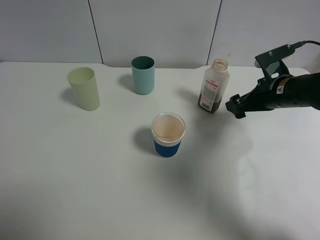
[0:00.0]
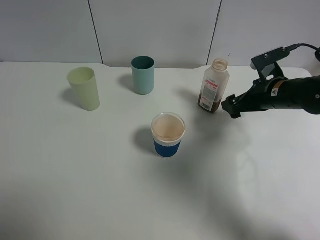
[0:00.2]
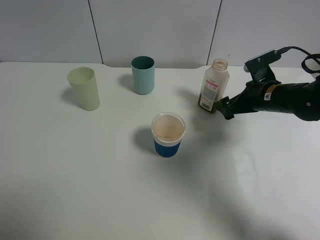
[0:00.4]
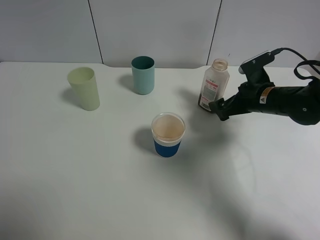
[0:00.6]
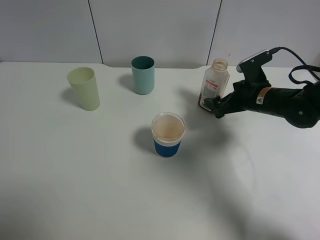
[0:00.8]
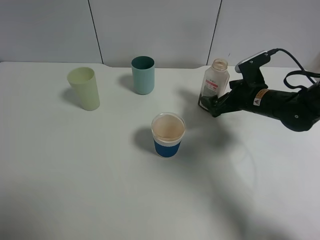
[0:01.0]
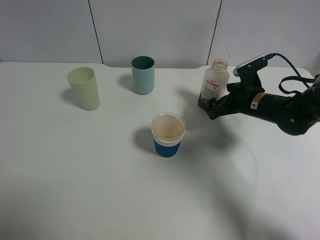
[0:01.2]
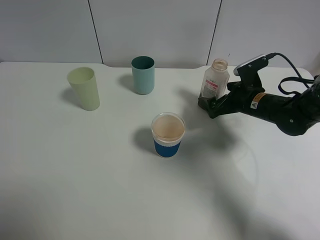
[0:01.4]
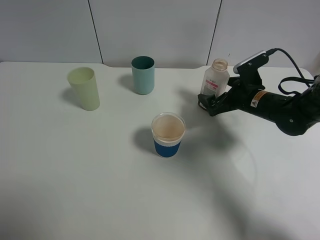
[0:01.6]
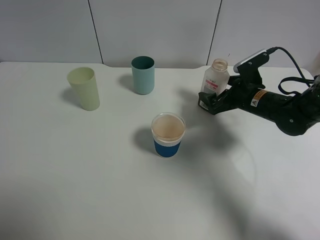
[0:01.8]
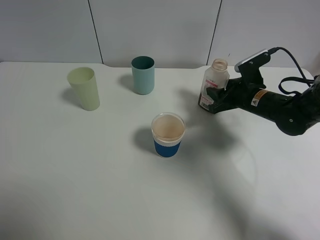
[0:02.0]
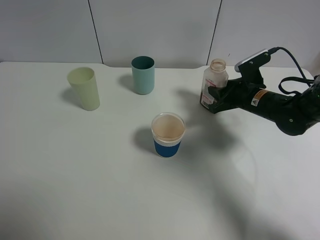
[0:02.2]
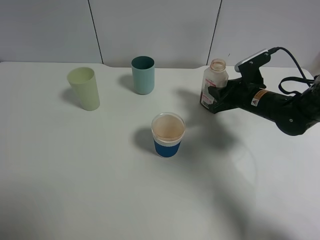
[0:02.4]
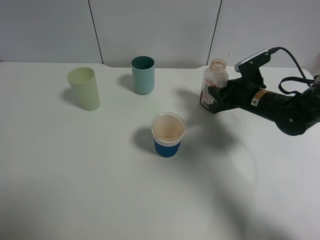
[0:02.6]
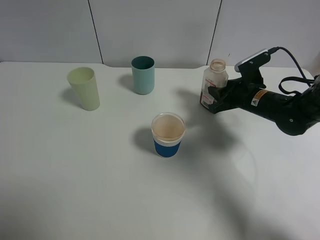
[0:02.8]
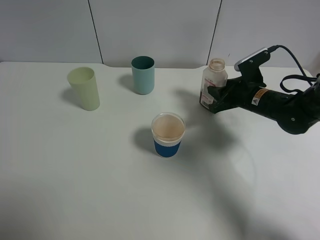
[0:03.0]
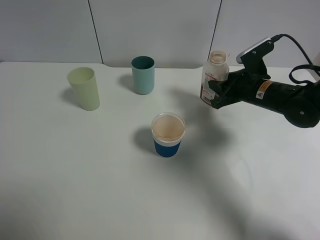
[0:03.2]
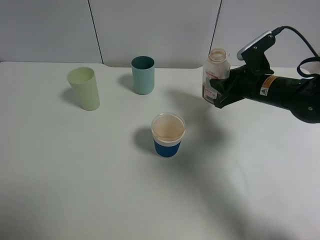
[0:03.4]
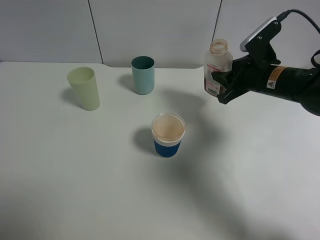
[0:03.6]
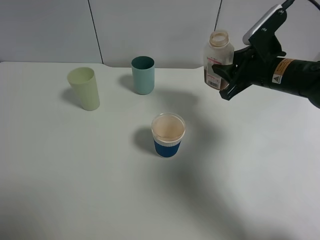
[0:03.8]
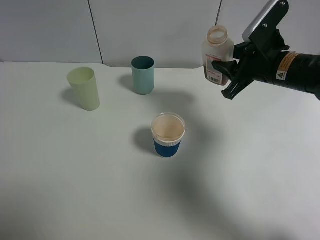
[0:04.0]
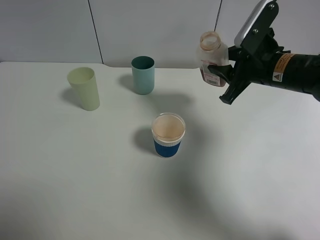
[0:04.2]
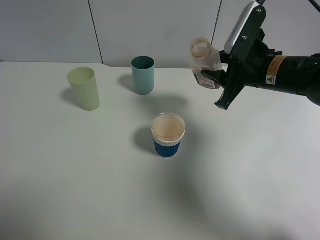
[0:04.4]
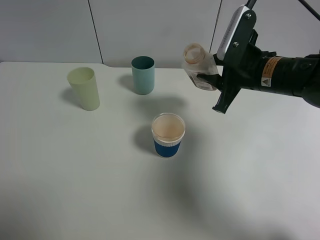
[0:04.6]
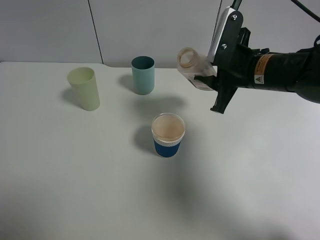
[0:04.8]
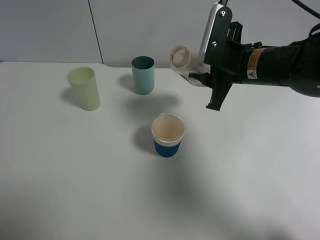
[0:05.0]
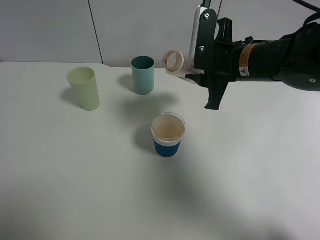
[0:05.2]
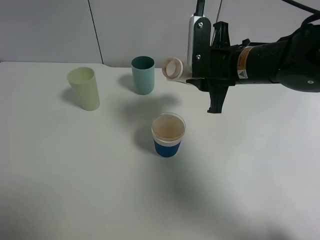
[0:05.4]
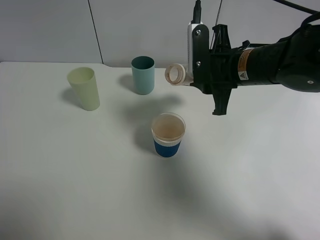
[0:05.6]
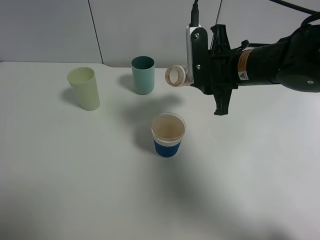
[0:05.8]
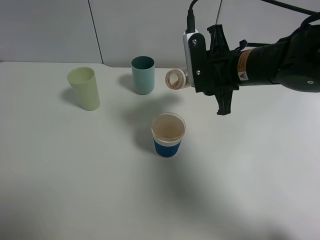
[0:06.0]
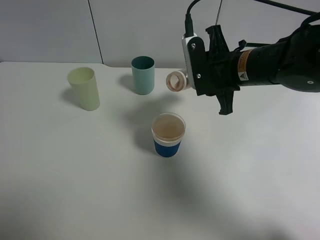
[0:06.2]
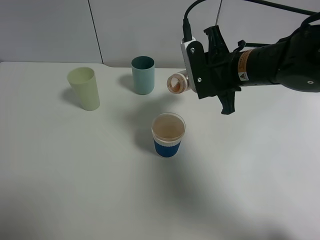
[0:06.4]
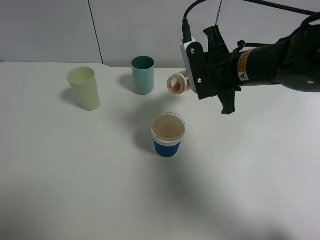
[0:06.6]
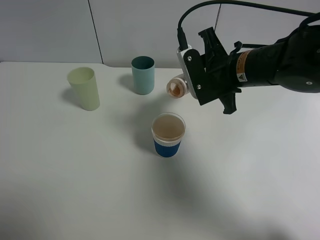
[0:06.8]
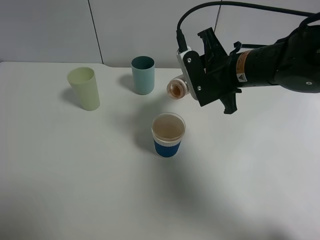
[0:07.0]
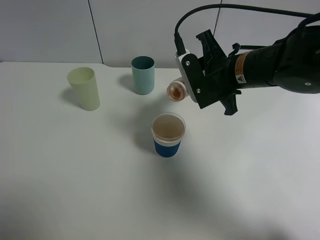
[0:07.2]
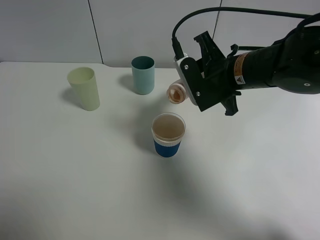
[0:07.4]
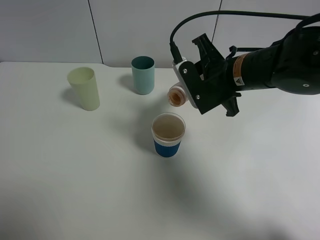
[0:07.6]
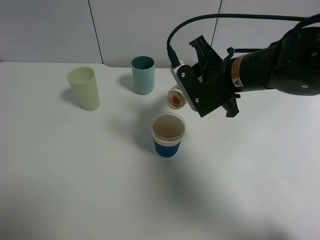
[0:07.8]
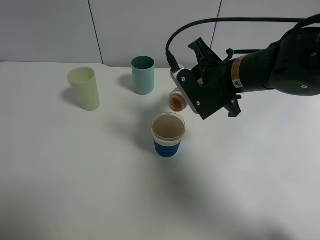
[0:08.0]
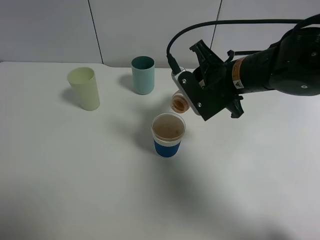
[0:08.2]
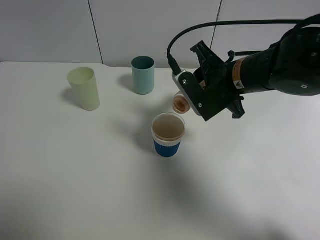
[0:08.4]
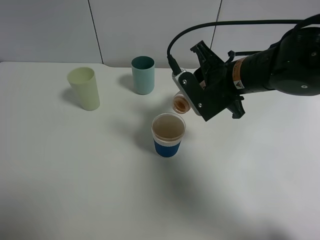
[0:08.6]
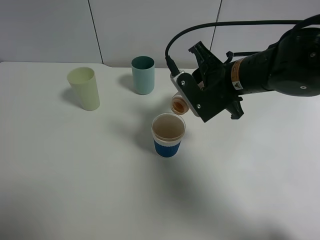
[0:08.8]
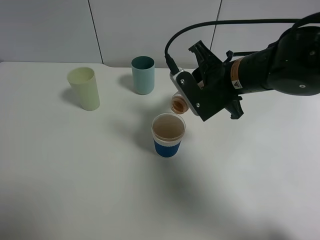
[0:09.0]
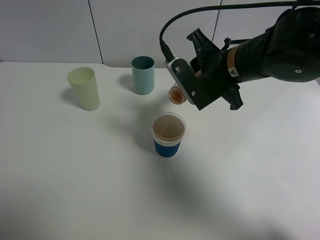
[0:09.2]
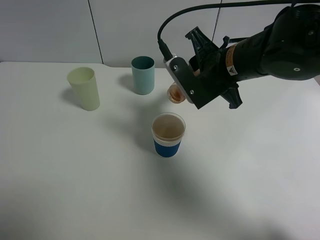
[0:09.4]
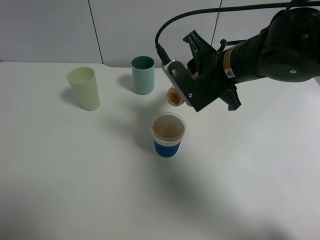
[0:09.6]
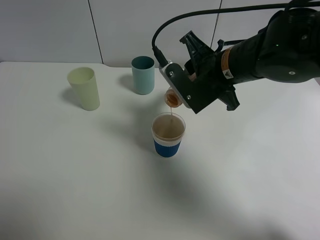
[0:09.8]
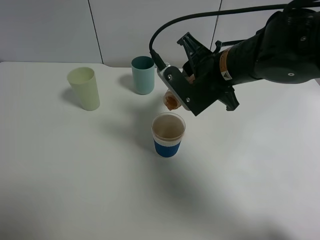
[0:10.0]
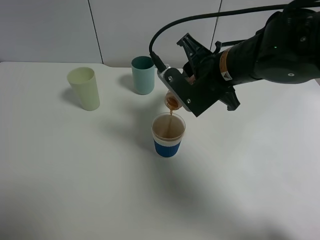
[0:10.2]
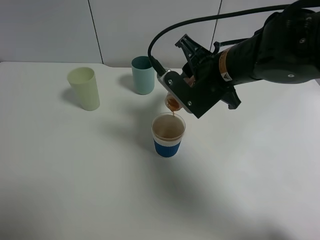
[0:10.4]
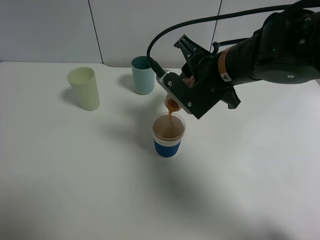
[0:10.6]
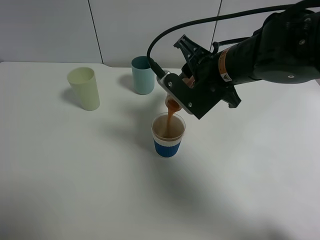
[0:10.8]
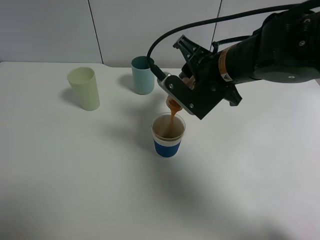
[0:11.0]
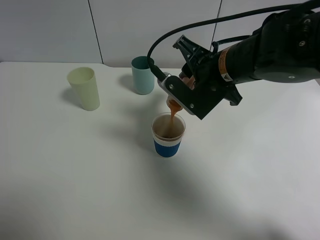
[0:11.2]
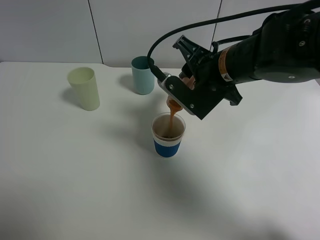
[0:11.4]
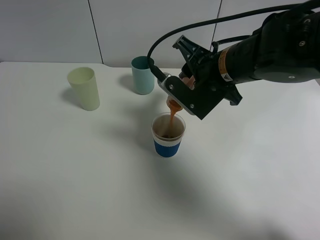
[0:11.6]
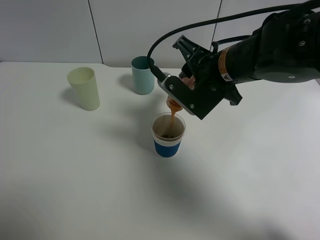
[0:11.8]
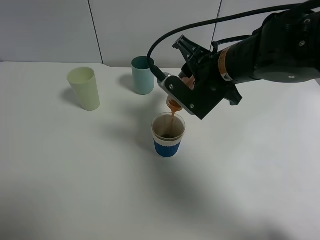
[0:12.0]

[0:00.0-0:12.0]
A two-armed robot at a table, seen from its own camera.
Task of the whole recording: use a gripper to hold the bottle of the drink and pour it into a random cup.
Step, 0:00.0 to 0:02.2: Grasp the cranberry juice bottle with the right gripper.
0:00.0 to 0:01.6: The right gripper changes place by about 5 cm.
0:01.6 to 0:03.0: The right gripper closes.
0:03.0 to 0:04.4: The right gripper travels upward by about 10 cm.
0:06.0 to 0:07.6: The grippers make only small movements.
0:07.6 to 0:12.0: The grippers move only a little.

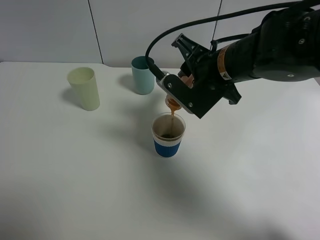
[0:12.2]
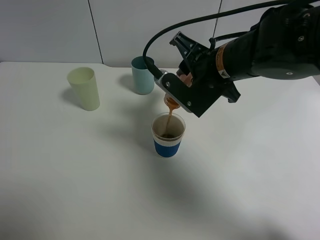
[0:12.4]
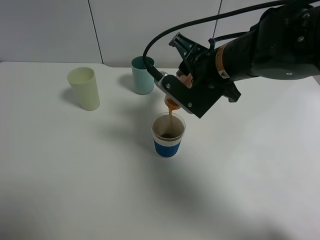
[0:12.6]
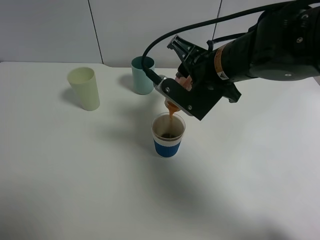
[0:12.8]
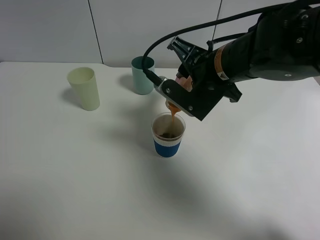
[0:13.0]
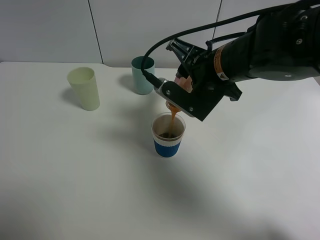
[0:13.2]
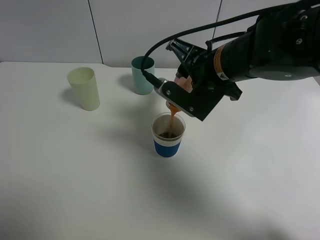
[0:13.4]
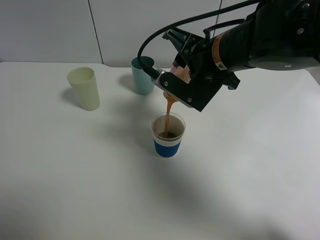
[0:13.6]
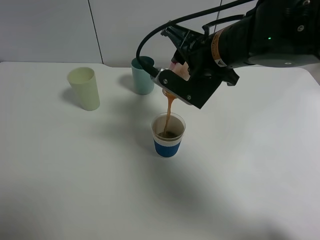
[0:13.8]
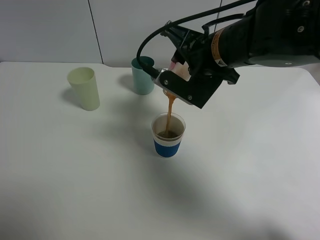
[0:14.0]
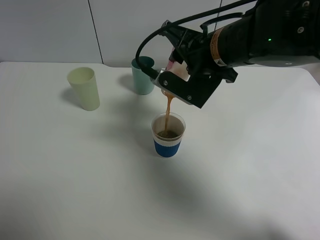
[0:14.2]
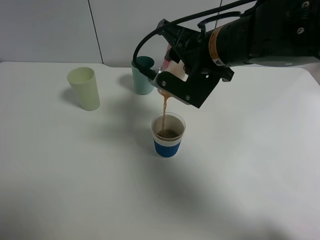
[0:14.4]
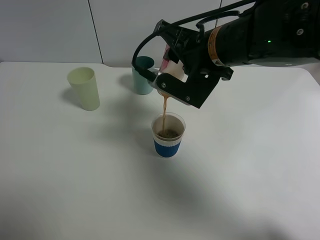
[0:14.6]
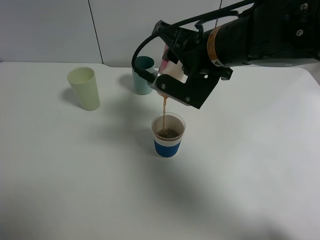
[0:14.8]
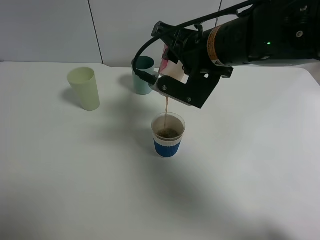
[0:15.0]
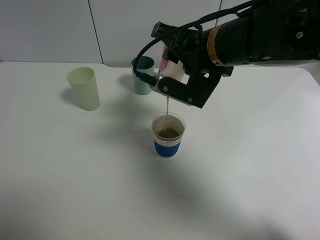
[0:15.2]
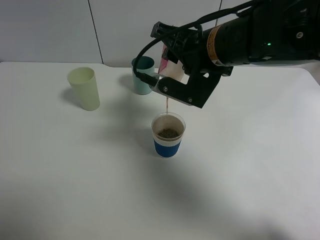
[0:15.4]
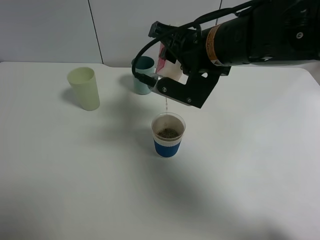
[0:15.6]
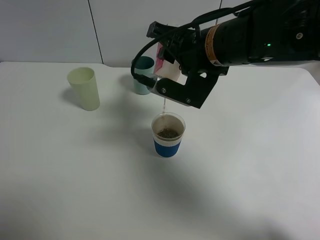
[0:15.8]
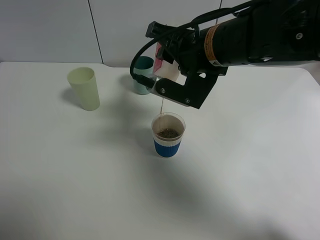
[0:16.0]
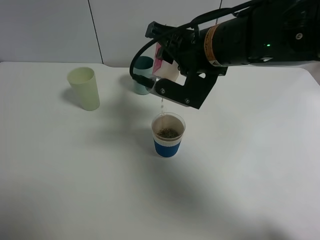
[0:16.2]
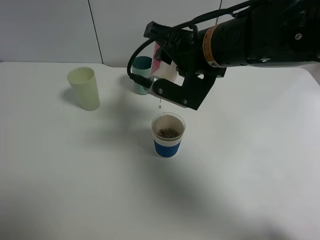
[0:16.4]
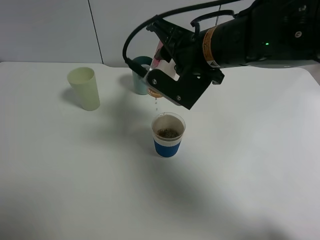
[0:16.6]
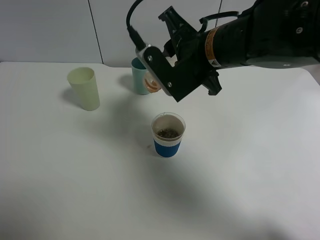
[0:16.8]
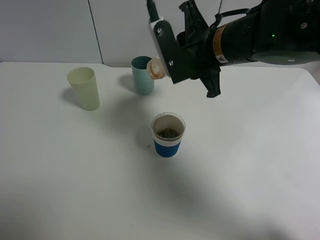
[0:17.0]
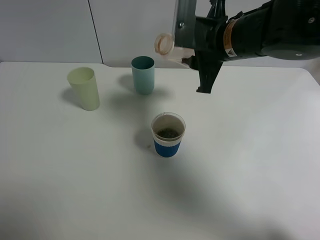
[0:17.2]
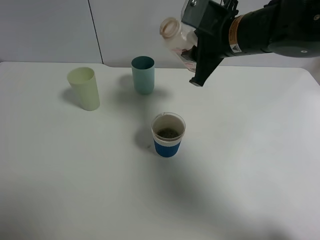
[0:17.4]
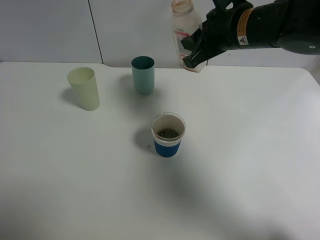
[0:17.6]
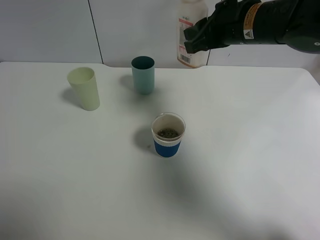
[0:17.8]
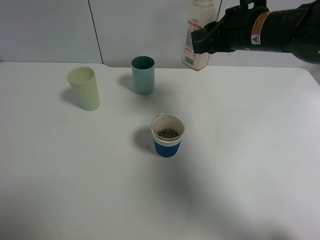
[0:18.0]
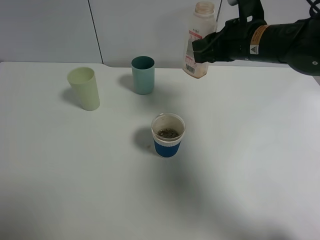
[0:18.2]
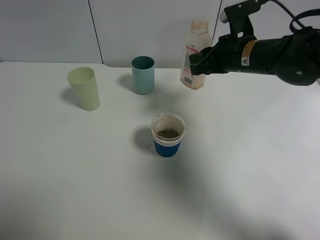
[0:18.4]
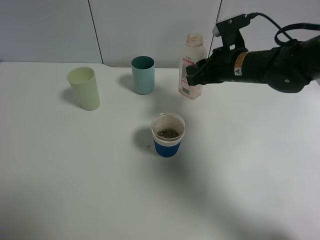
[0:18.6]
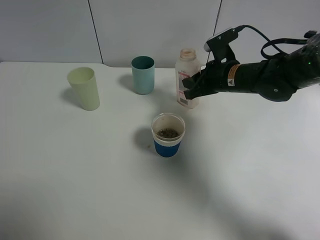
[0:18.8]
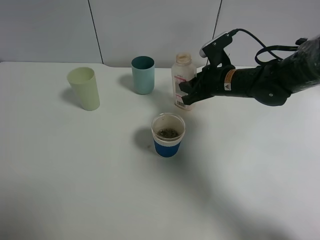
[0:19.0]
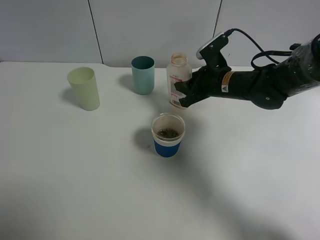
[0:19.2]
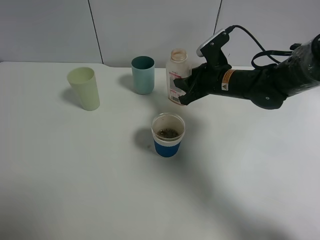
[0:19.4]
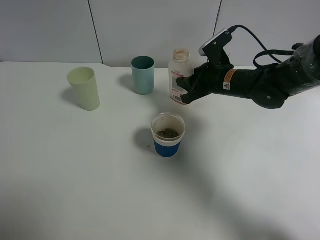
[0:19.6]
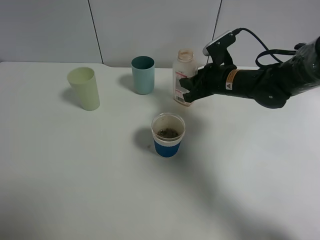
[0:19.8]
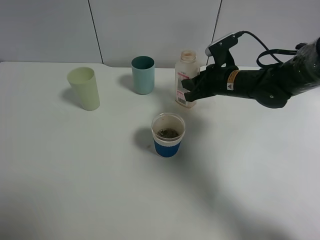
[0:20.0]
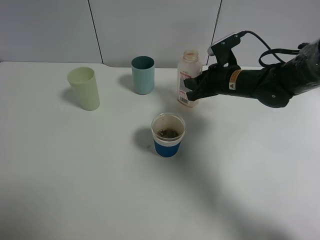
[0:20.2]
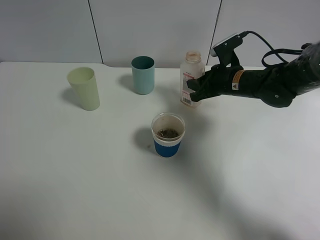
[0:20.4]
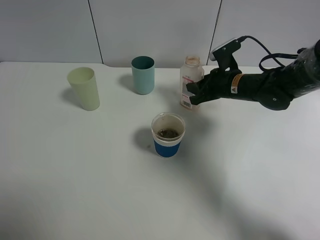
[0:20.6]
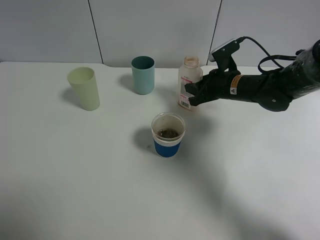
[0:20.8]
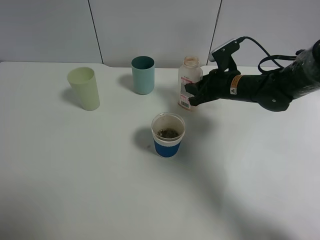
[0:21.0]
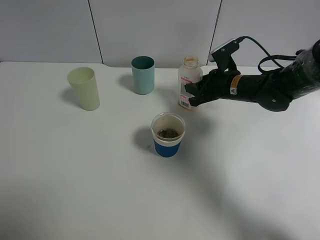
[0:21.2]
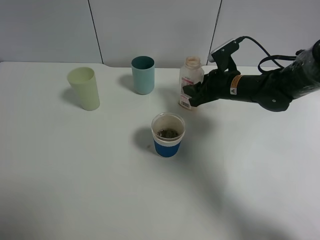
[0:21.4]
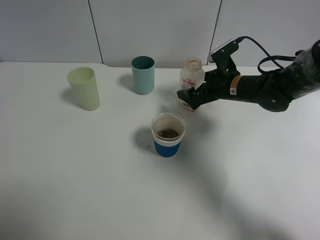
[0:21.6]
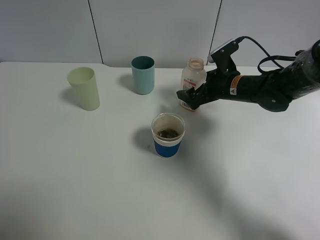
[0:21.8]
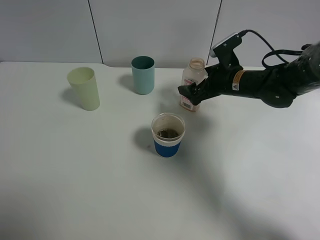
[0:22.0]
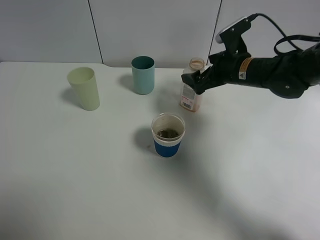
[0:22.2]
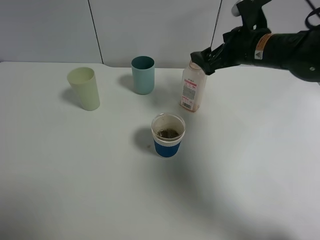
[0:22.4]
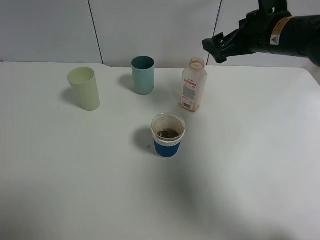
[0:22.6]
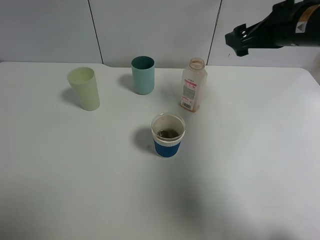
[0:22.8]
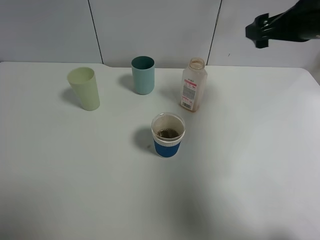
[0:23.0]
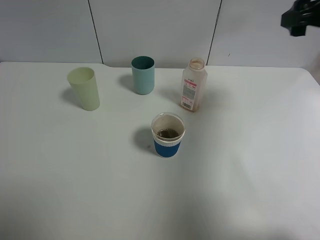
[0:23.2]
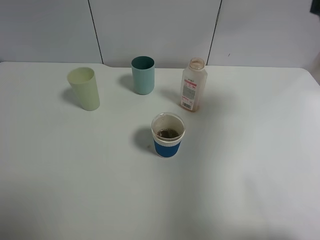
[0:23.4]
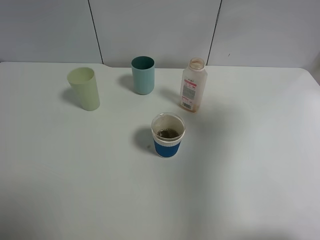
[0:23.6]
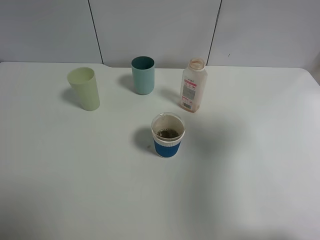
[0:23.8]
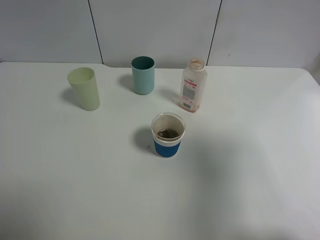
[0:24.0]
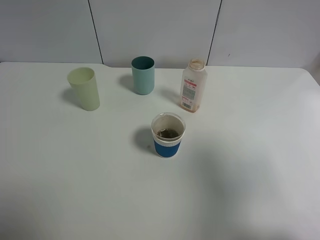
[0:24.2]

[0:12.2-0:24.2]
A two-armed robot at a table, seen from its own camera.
Task of the whole recording: use a gripper to hold the bottle of the drink and pour it into a random cup.
Step, 0:12.2 to 0:16.6: Pour the cranberry juice into the paper cup with the right gripper.
Step, 0:16.8 to 0:21.8: Place the cranberry juice bottle on the table with the right gripper.
0:12.2 to 0:13.8: There are only small adjustments of the grippers.
0:13.8 to 0:16.6: The grippers stay close to where they were, moving slightly.
0:16.6 to 0:18.2: The right gripper moves to the right and forward, about 10 cm.
0:18.2 to 0:19.8: The right gripper goes roughly 10 cm downward.
0:19.8 to 0:21.2: There are only small adjustments of the grippers.
0:21.2 to 0:22.6: The right gripper travels upward by approximately 15 cm, and opens its fingers.
0:22.6 to 0:24.2: The right gripper travels backward by about 30 cm.
